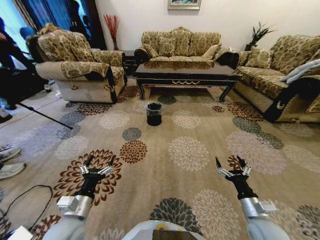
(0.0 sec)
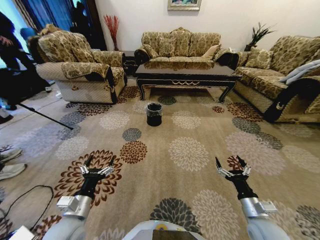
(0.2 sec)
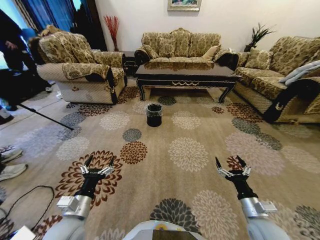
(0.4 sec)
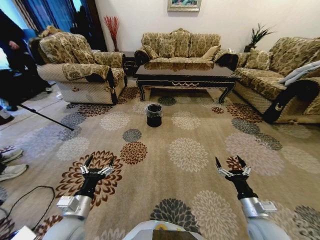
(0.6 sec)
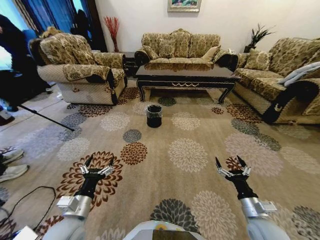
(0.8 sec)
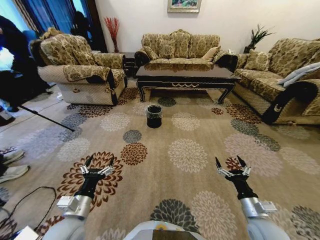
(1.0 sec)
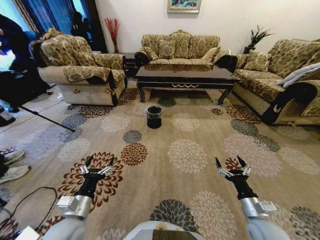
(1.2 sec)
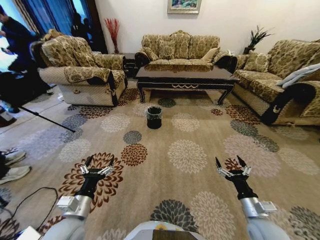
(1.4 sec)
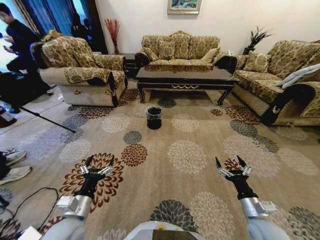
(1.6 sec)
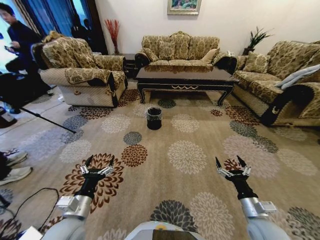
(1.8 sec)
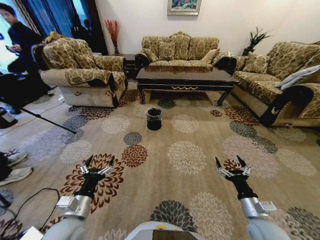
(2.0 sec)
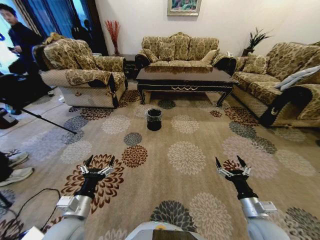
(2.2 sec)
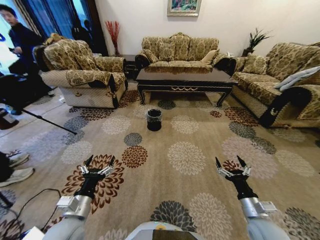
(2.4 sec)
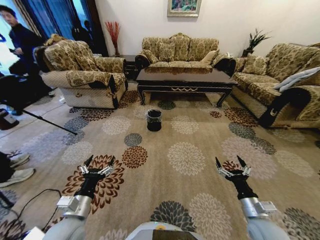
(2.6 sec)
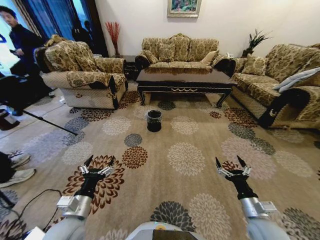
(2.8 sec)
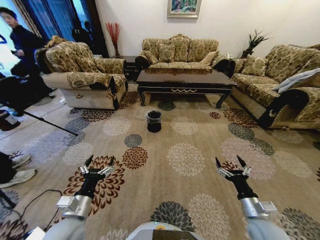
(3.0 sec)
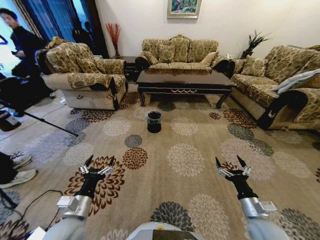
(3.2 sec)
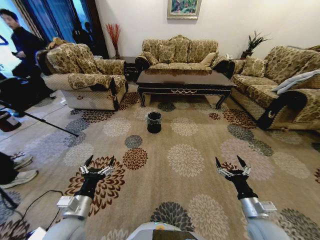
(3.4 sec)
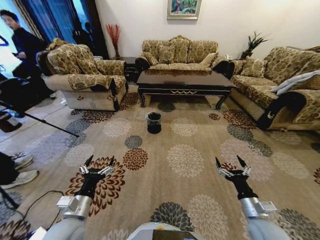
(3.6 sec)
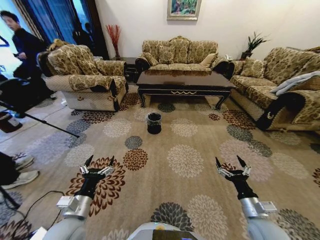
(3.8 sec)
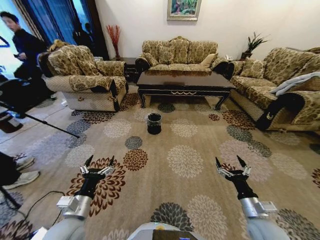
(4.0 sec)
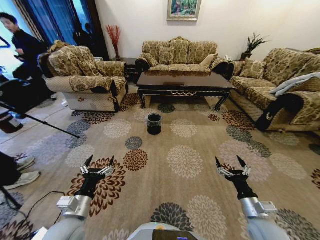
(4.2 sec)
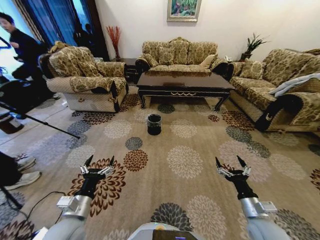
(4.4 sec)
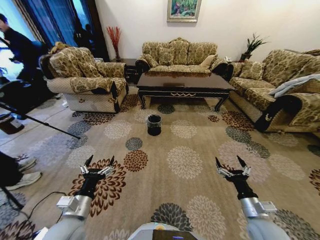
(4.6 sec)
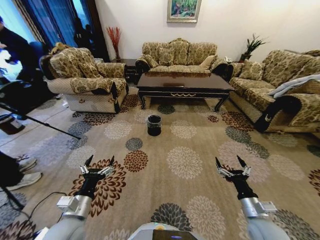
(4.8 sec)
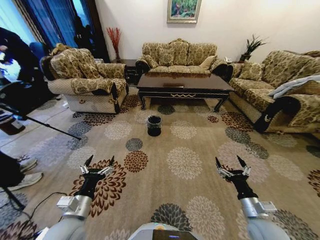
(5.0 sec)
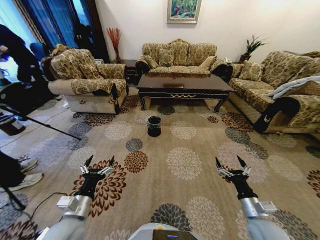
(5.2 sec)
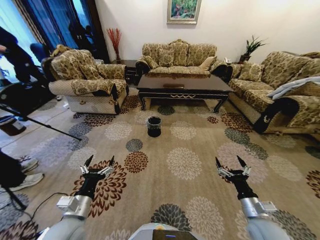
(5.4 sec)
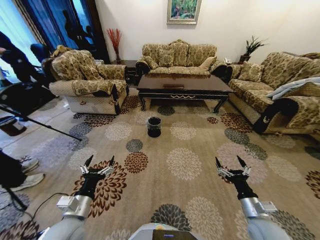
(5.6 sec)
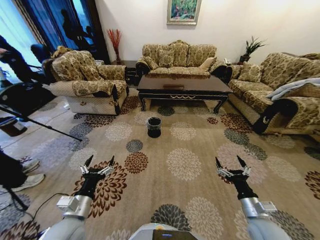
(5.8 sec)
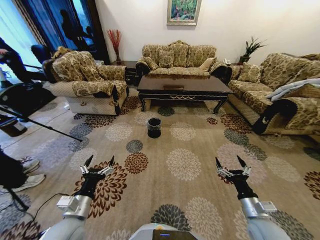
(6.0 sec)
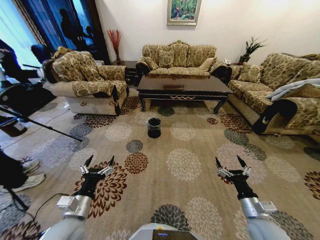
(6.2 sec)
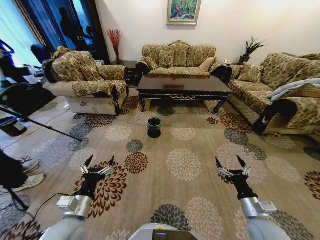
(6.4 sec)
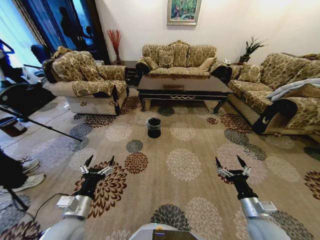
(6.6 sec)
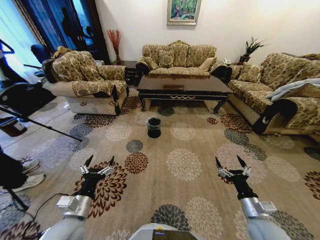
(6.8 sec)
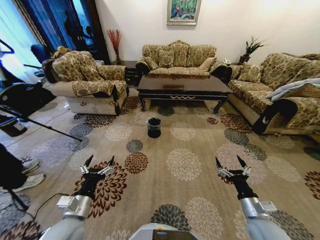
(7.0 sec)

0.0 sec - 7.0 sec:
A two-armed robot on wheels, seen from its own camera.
Task of the whole recording: Move to the front of the table and pick up the trash from the floor, then place it into the trash bin.
5.6 sec - 7.0 sec: Both grippers stay put.
